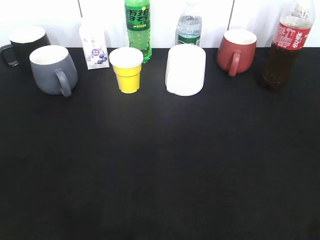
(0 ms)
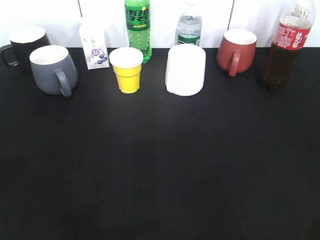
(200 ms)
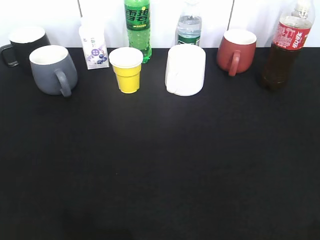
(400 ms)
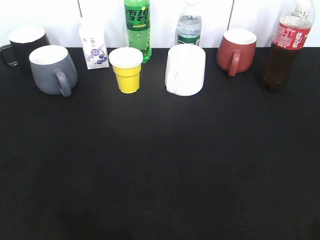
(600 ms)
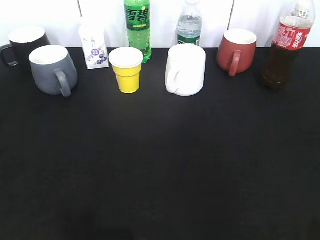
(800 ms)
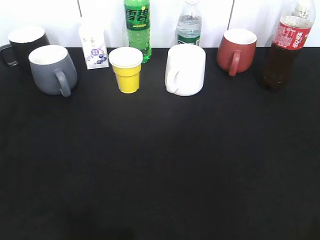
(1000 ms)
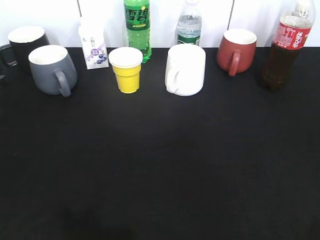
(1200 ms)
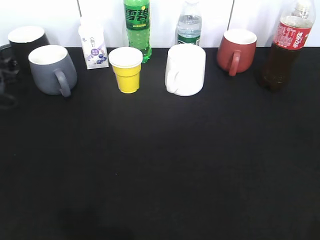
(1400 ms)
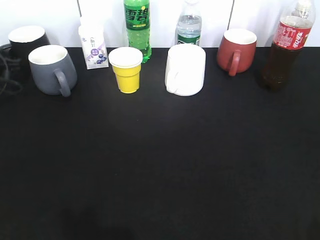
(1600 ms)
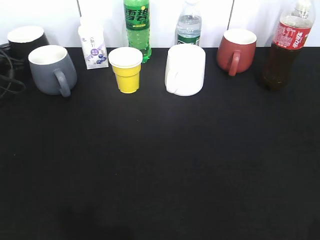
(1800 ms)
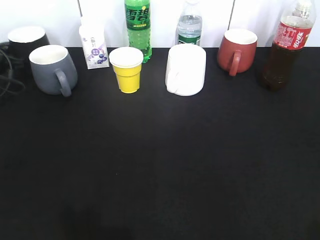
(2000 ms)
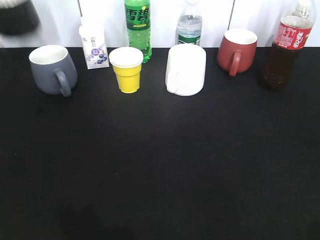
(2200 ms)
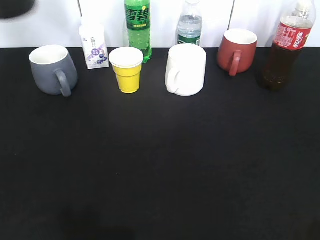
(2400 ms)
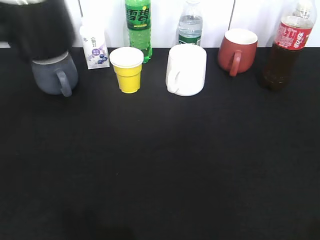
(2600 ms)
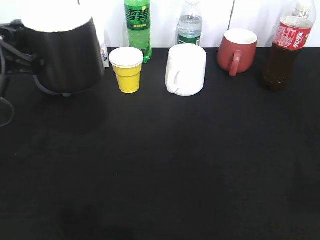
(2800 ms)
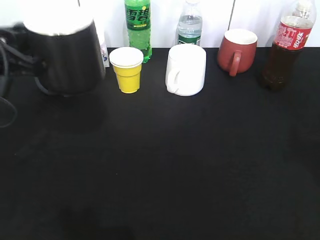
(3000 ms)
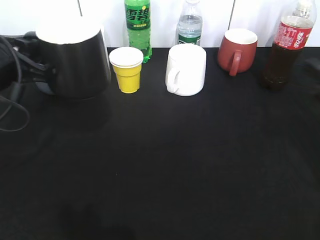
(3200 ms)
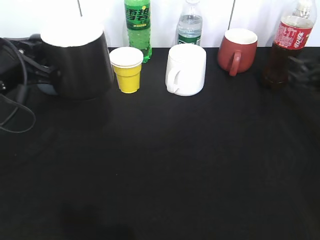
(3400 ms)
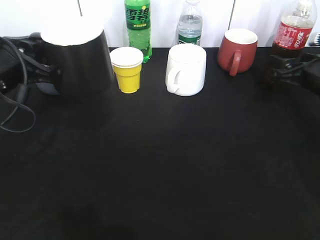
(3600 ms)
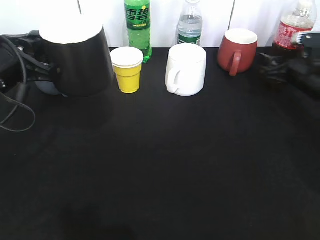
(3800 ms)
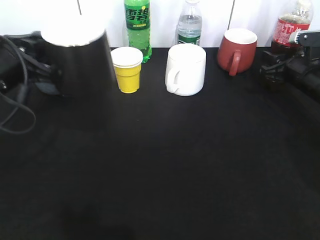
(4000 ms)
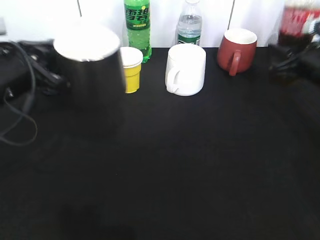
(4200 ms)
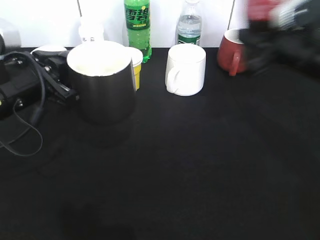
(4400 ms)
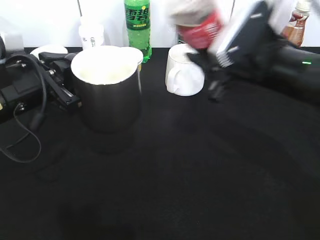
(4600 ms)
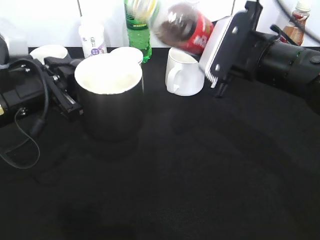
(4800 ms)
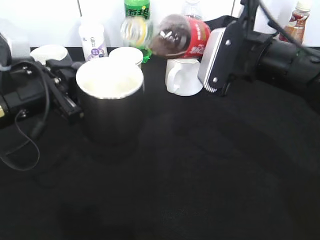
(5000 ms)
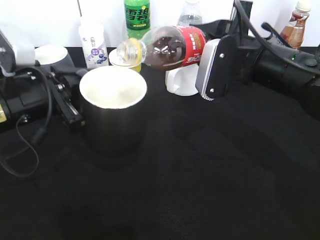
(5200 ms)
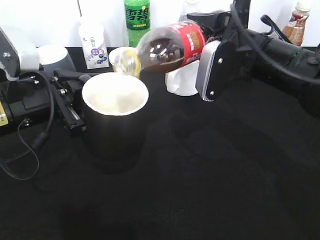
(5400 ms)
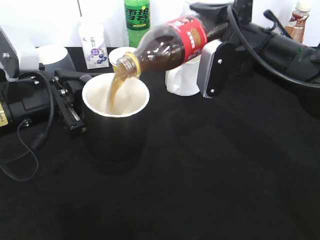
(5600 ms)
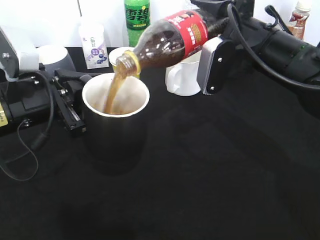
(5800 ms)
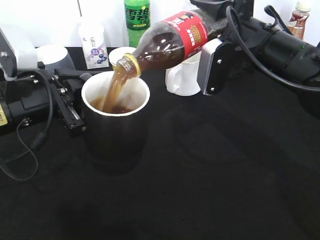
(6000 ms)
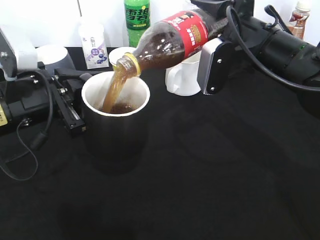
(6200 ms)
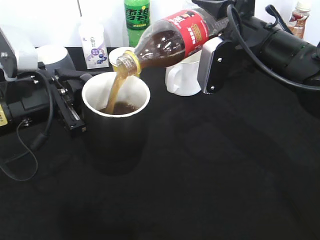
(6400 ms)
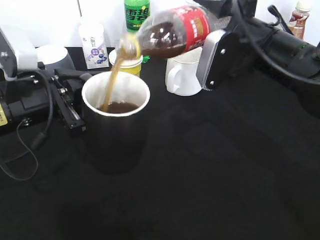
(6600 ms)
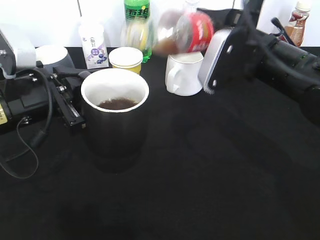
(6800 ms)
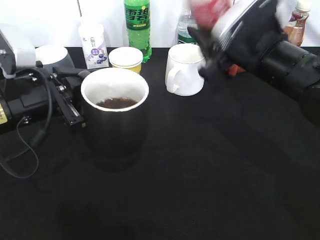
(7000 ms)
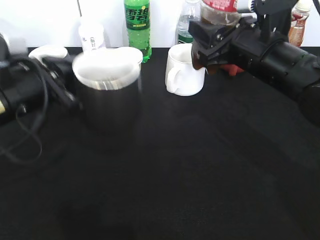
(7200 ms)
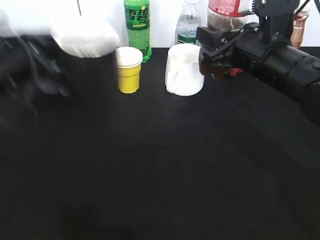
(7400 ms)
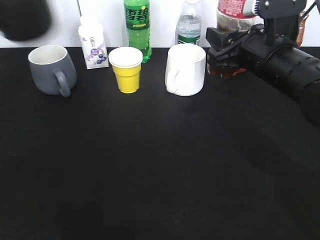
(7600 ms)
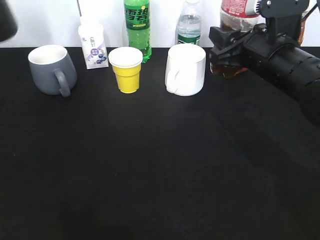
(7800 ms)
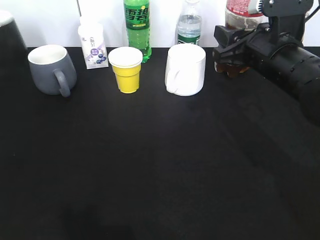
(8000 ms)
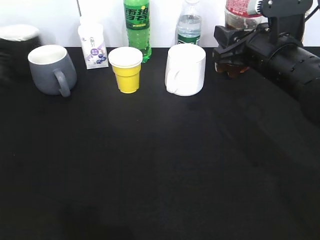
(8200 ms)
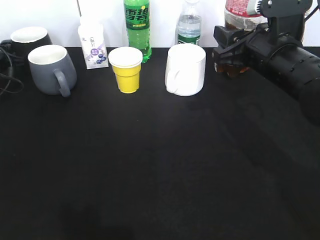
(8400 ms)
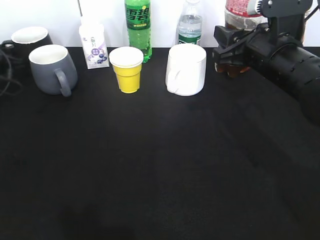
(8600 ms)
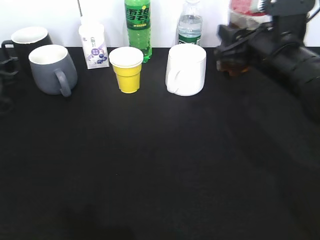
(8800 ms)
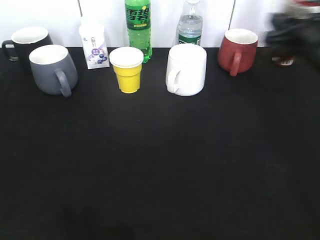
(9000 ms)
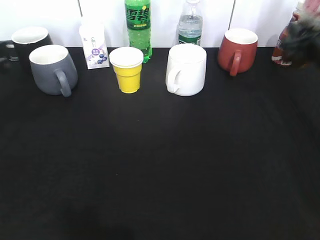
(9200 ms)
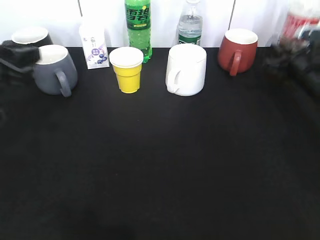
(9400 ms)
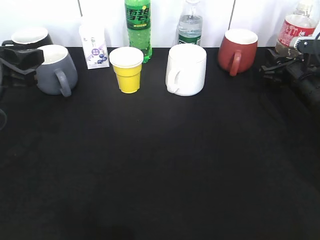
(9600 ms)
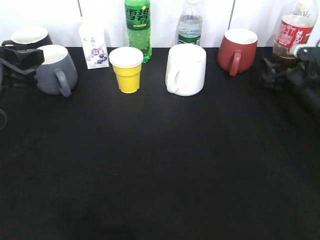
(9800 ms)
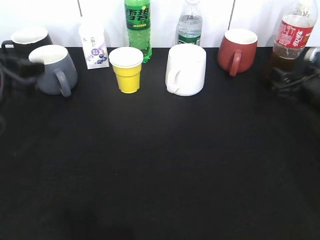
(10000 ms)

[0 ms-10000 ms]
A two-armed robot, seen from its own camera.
Step, 2000 ms to 3000 ms: Lift the black cup with left gripper.
Step, 3200 ms to 4000 ms: Grasp the bottle with cola with right gripper.
Step, 4200 ms to 6800 ms: Pour the cola from bottle to cup with right gripper.
Step, 7000 ms to 8800 ms: Place the black cup on the table with left gripper.
0 ms to 1400 ms: The left gripper shifts about 40 cm forward and downward.
1400 ms to 2800 ms: The left gripper shifts approximately 25 cm backward, upward and to the right, and closes up. Meanwhile the right gripper is displaced forward by about 5 cm.
2800 ms to 4200 ms: The right gripper moves forward and downward, approximately 30 cm, and closes its fingers.
4200 ms to 5800 ms: The right gripper travels to the left and upward by approximately 15 cm.
7200 ms to 8600 ms: The left gripper shifts roughly 30 cm forward, to the left and downward, and opens.
8600 ms to 10000 ms: The right gripper shifts approximately 15 cm to the right and downward, and opens; the left gripper goes approximately 30 cm backward, to the right and upward.

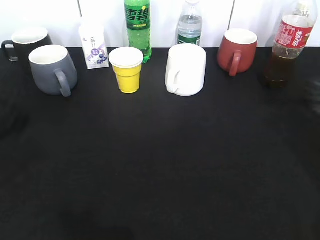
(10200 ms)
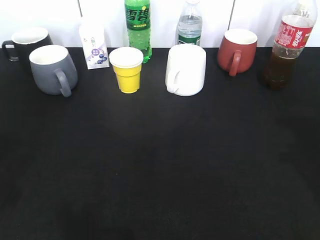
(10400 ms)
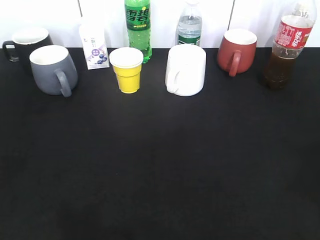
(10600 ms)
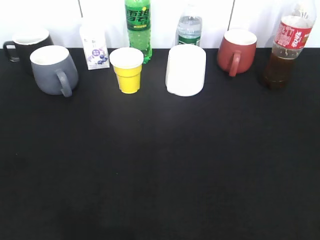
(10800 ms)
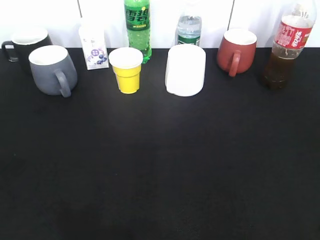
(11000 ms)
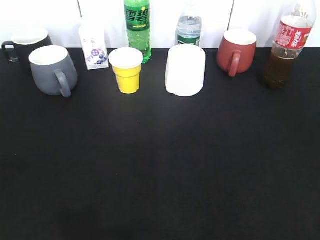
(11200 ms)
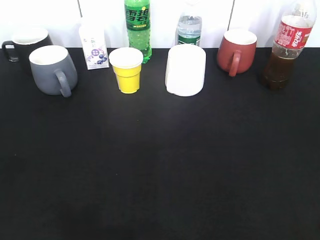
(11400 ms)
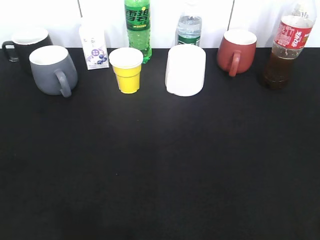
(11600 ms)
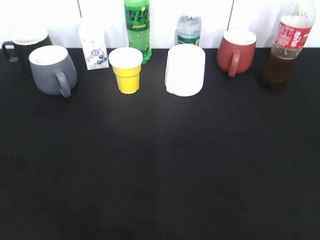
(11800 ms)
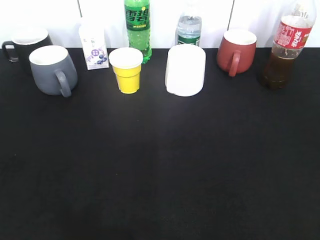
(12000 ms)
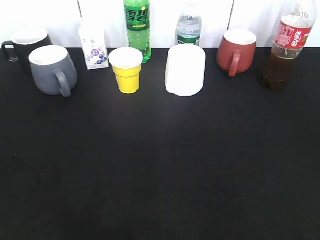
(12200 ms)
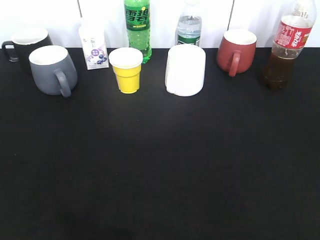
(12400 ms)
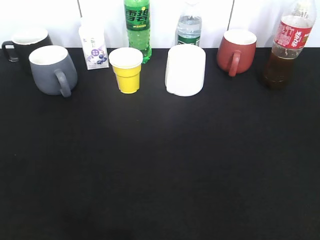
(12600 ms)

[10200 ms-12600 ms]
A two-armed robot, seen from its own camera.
10200 ms to 11400 ms: Both grippers travel together backward, some 25 cm.
